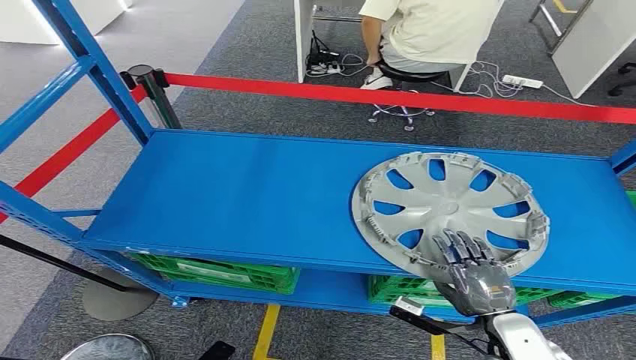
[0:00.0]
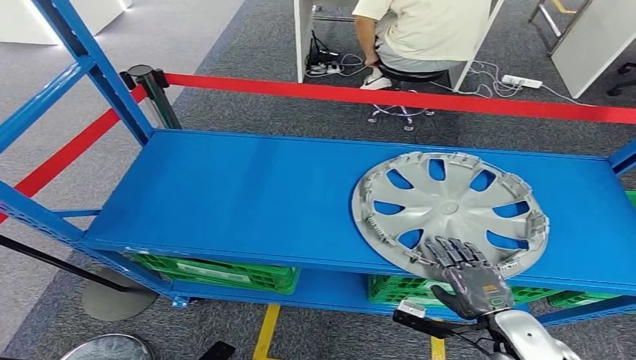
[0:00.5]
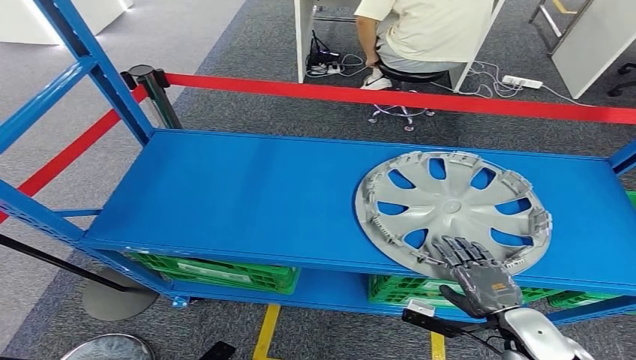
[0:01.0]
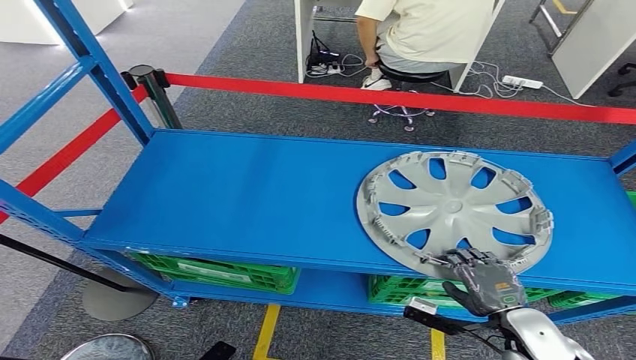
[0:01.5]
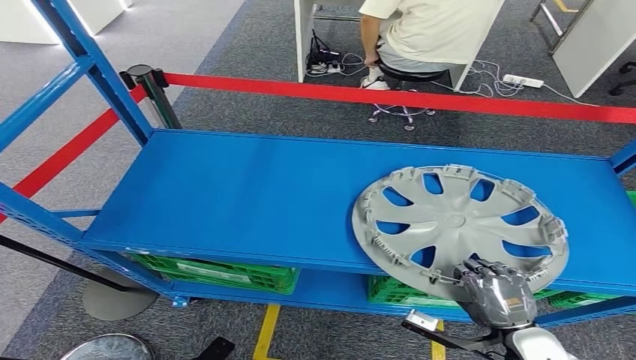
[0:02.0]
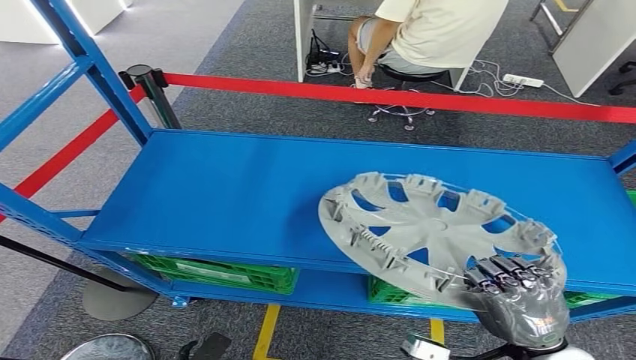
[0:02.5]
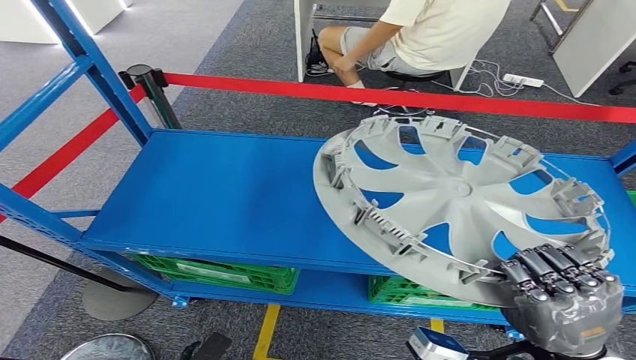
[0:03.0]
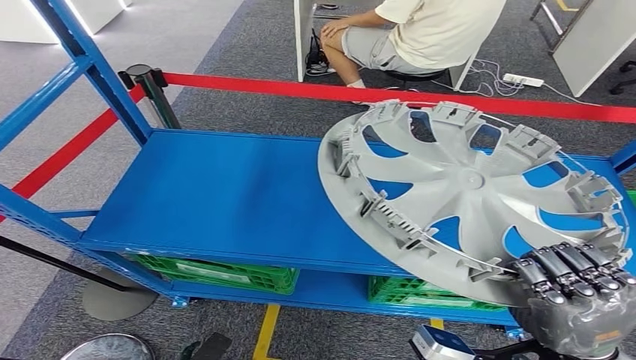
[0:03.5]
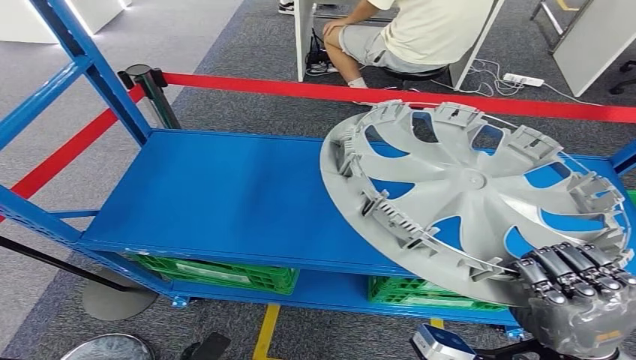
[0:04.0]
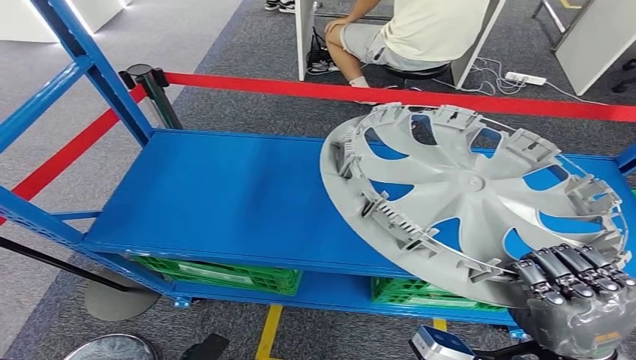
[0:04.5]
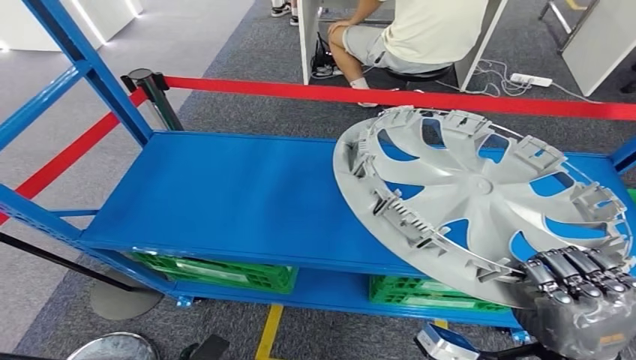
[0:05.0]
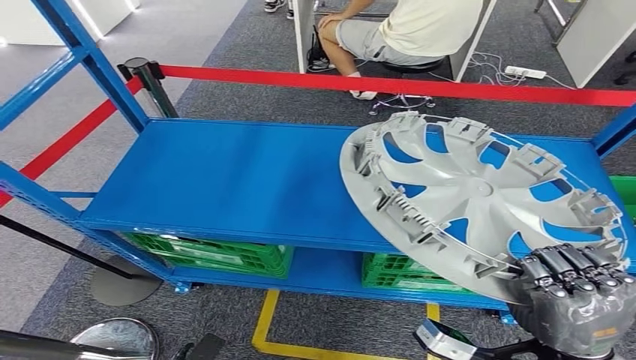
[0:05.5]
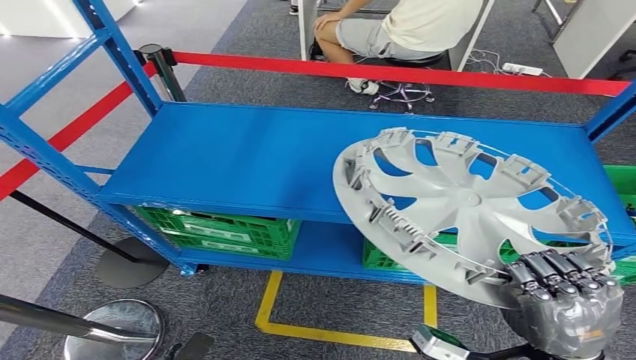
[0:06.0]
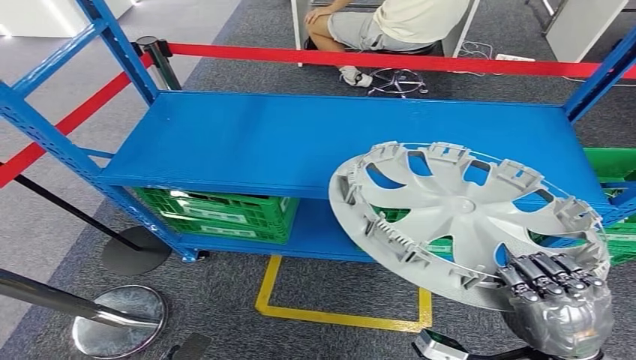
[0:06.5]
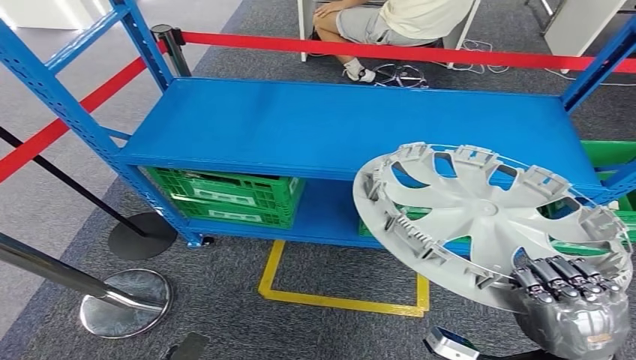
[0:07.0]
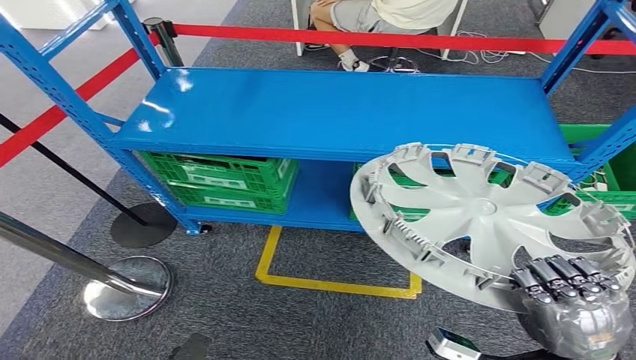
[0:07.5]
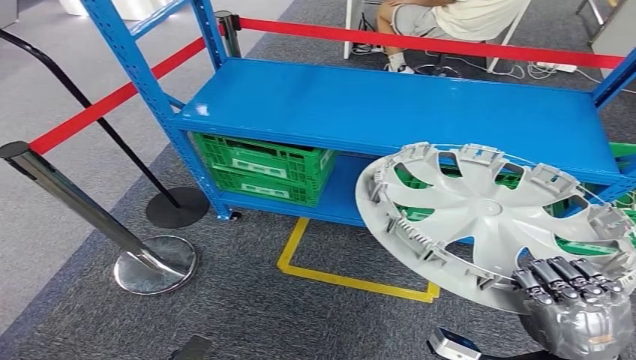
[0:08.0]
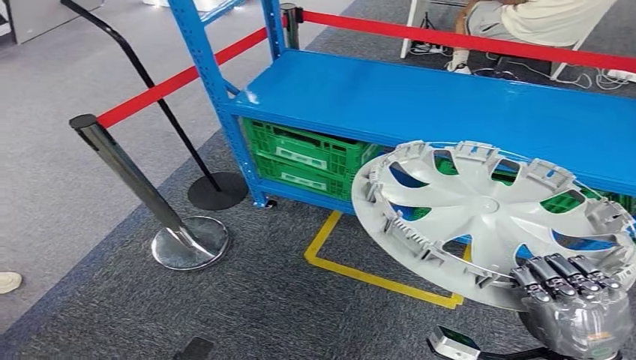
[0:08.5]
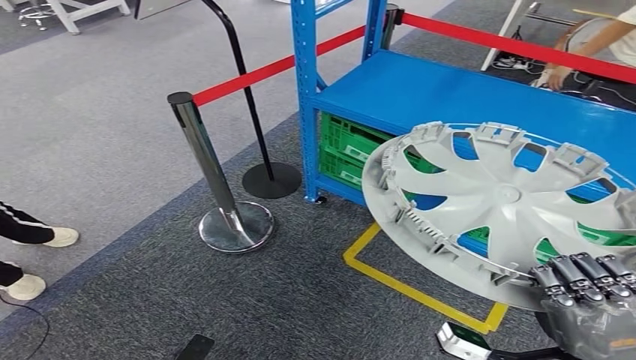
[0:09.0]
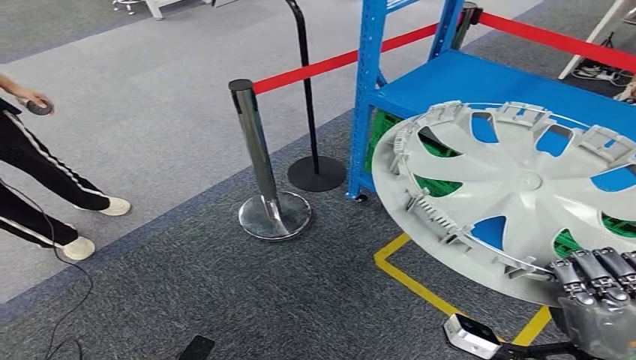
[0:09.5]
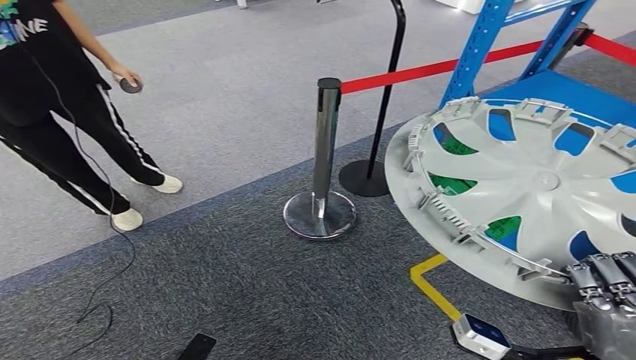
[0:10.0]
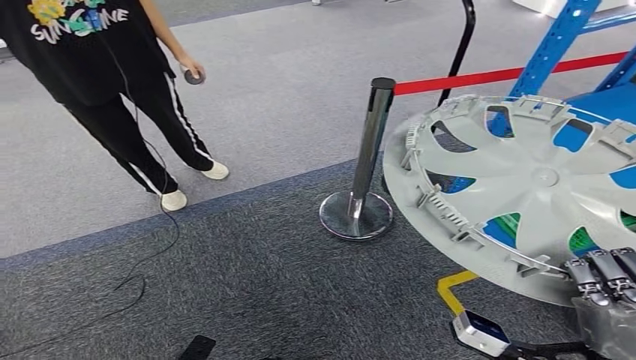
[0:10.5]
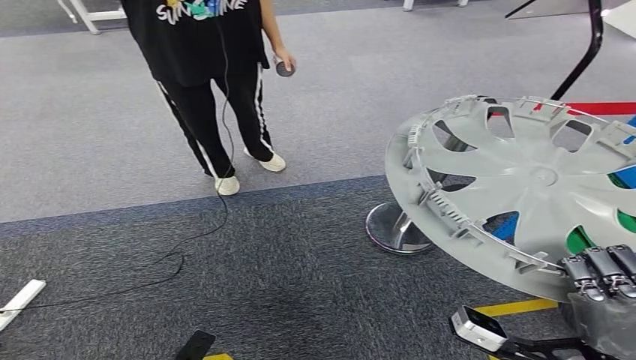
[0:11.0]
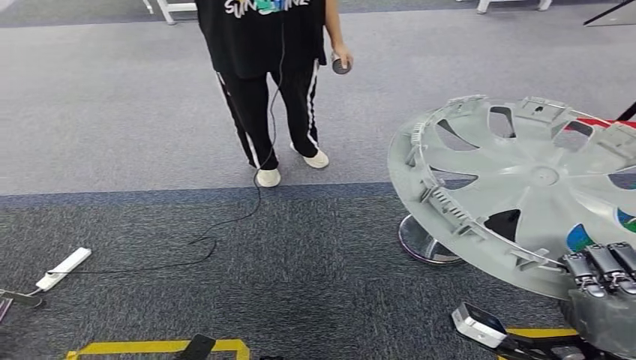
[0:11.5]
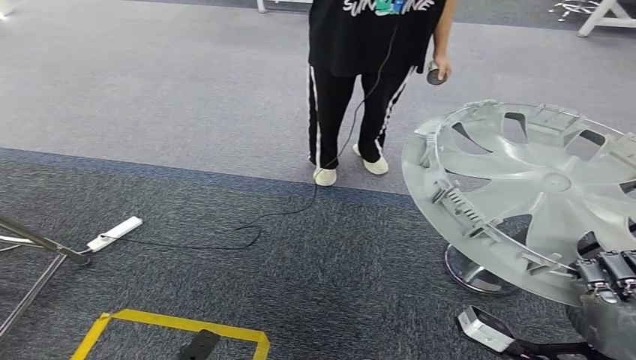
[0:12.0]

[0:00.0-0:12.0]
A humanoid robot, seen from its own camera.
Step, 0:00.0 to 0:04.0: Pick up the small parts from the shelf.

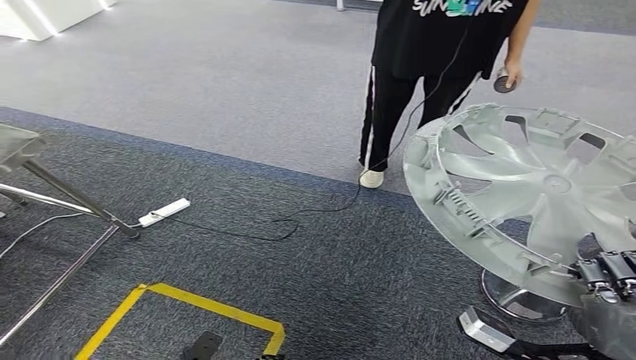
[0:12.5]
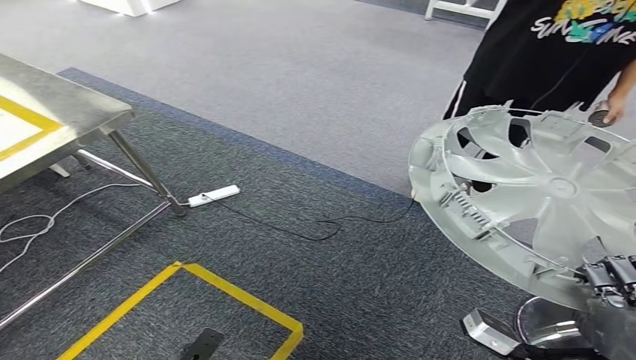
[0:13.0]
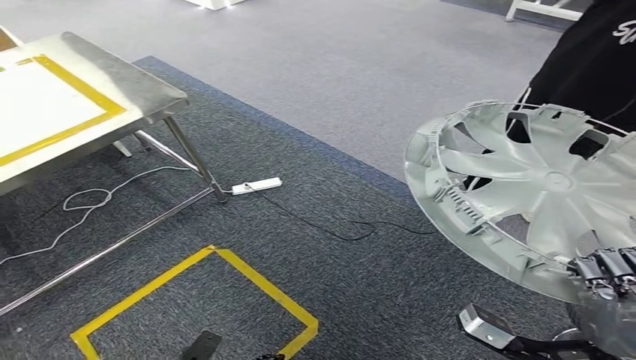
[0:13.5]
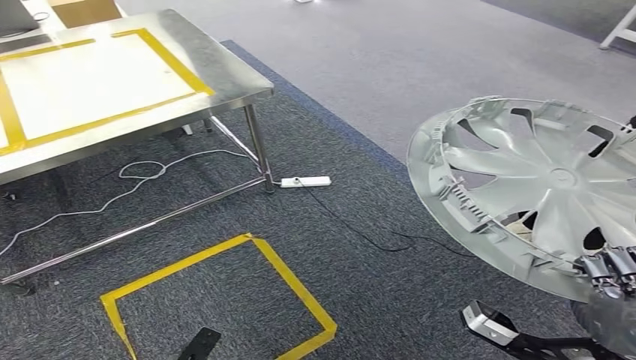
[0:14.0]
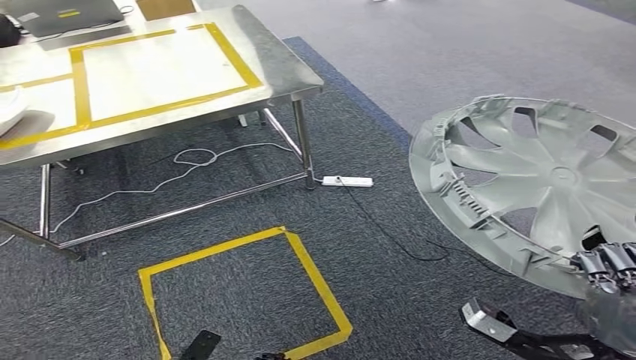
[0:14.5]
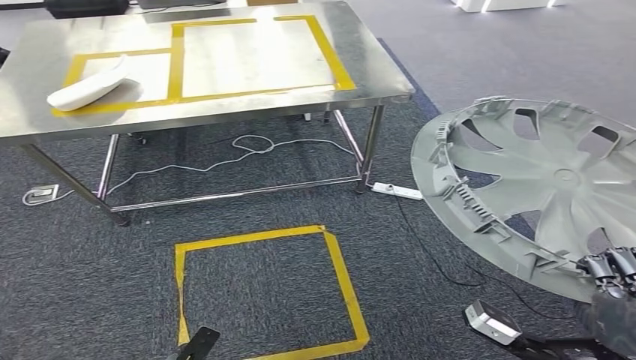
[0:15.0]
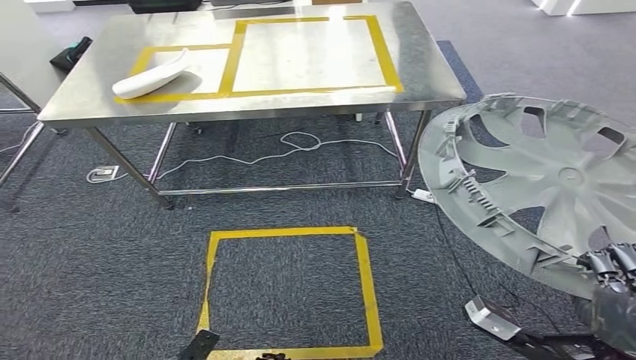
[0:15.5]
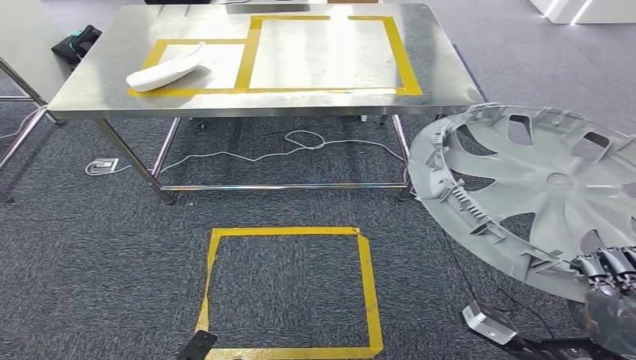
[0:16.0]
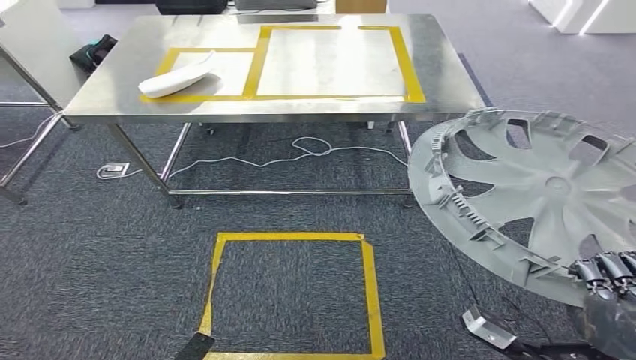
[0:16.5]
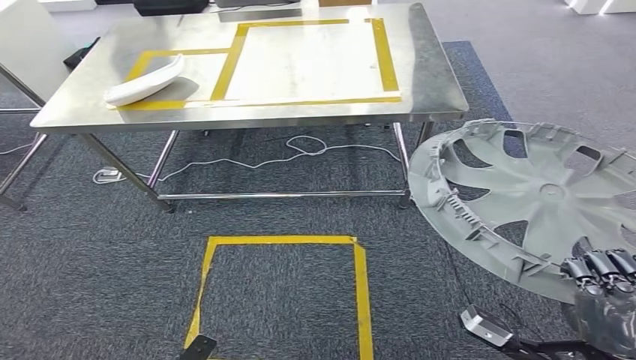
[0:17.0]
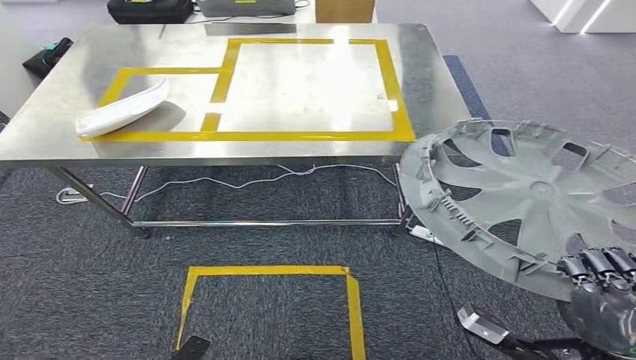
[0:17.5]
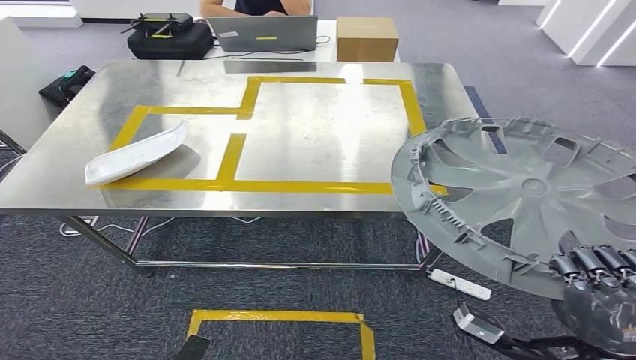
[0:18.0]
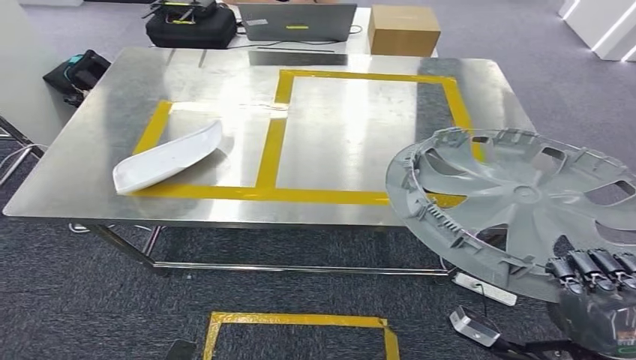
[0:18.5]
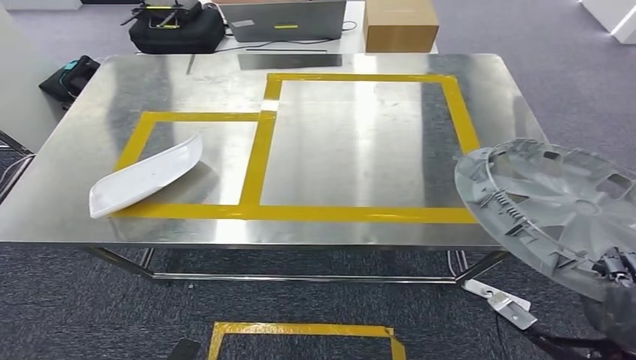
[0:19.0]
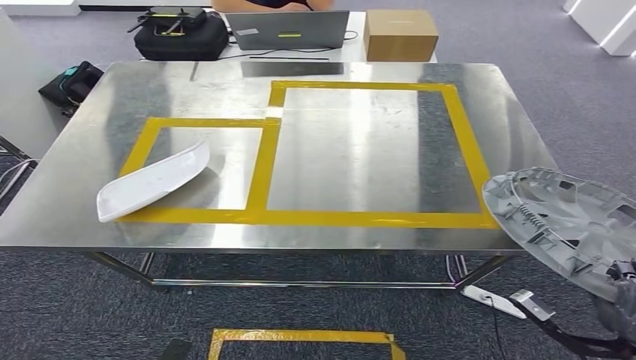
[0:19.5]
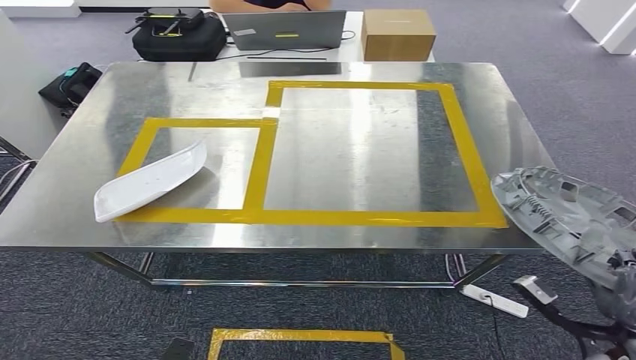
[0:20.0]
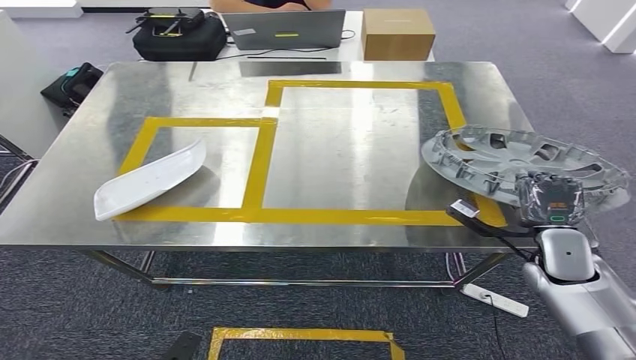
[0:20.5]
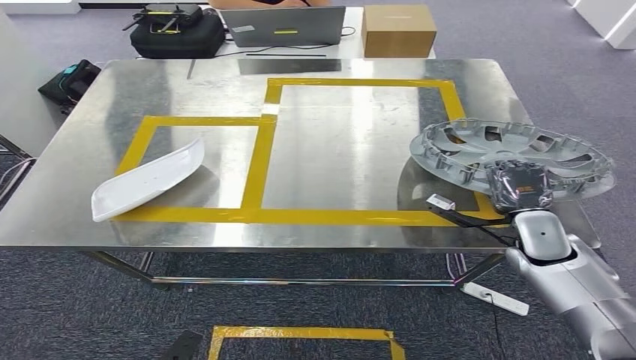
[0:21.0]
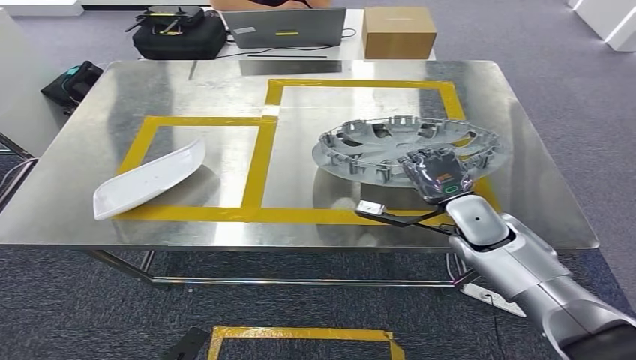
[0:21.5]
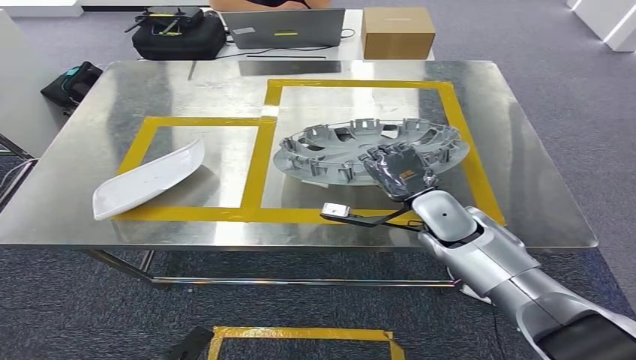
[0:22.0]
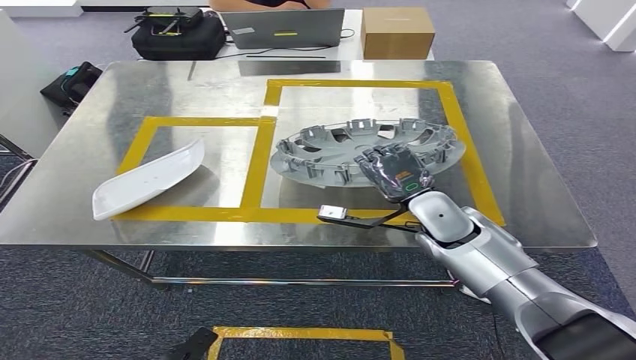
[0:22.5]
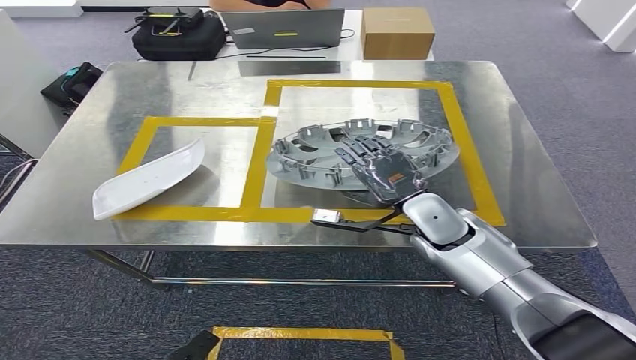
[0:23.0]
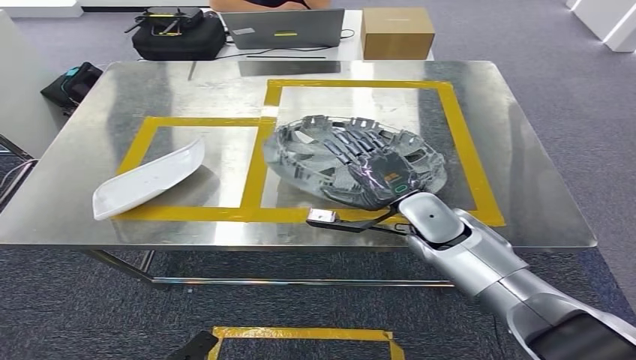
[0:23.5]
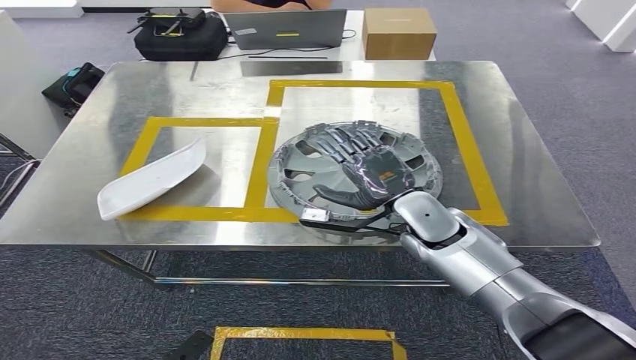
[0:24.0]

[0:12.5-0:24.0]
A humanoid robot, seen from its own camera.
Step, 0:12.5 to 0:19.0: Move the small parts to the workbench.
0:22.0 to 0:24.0: The hands make only small movements.
